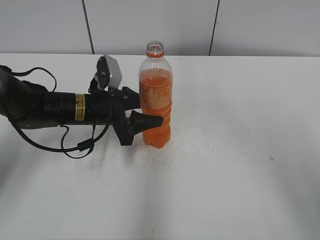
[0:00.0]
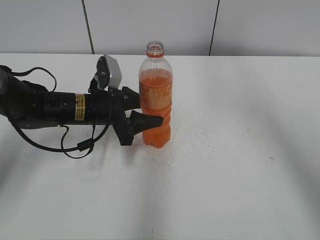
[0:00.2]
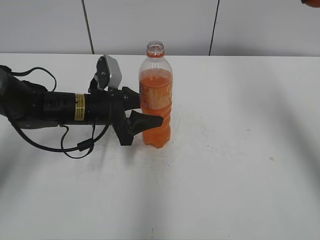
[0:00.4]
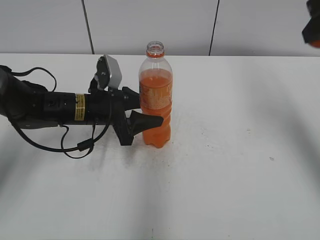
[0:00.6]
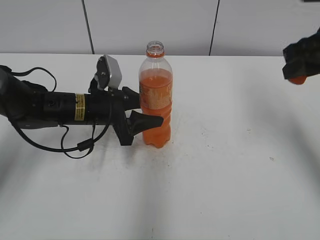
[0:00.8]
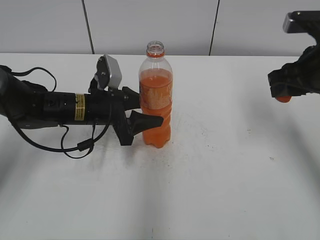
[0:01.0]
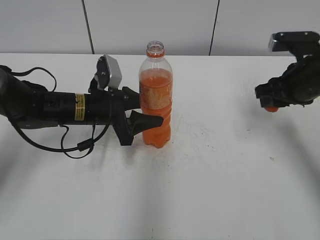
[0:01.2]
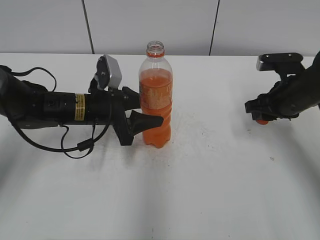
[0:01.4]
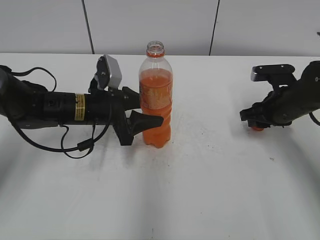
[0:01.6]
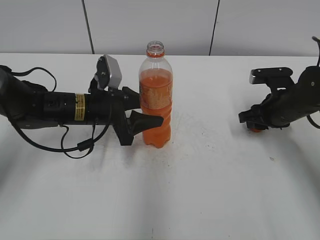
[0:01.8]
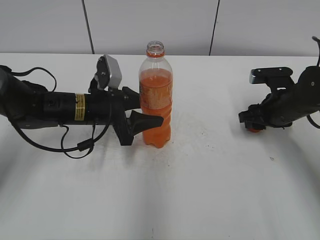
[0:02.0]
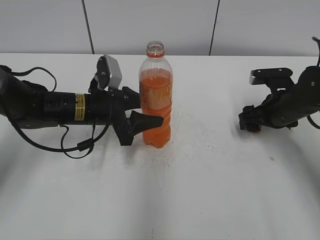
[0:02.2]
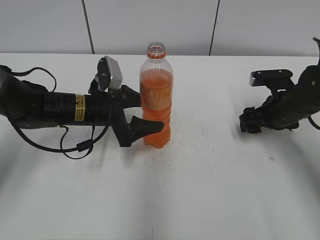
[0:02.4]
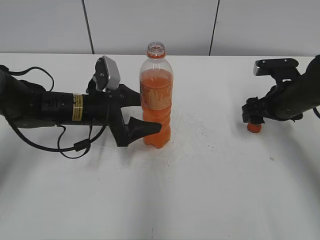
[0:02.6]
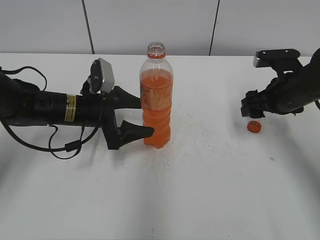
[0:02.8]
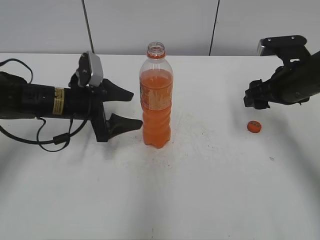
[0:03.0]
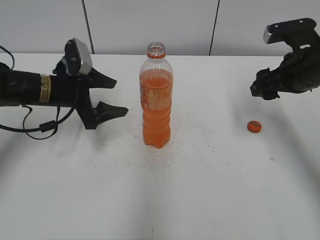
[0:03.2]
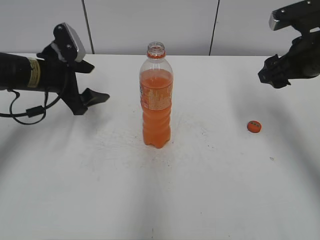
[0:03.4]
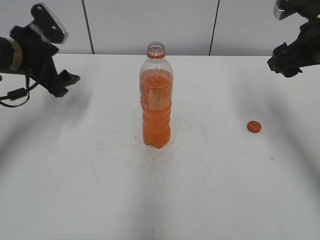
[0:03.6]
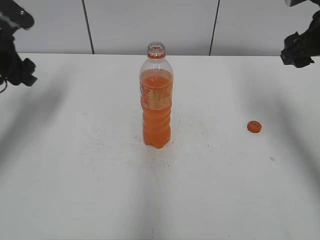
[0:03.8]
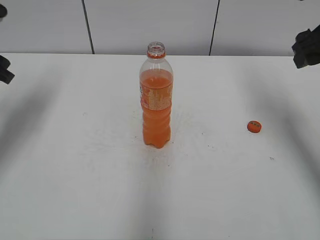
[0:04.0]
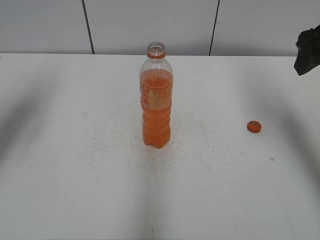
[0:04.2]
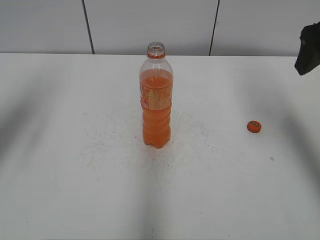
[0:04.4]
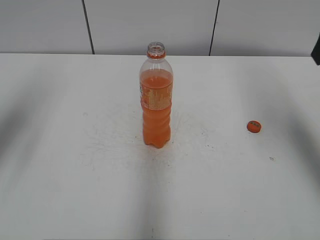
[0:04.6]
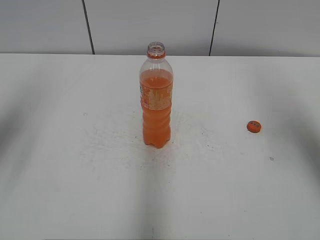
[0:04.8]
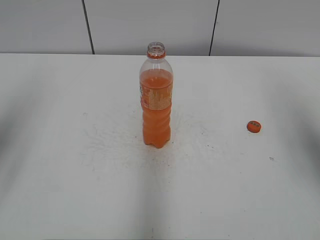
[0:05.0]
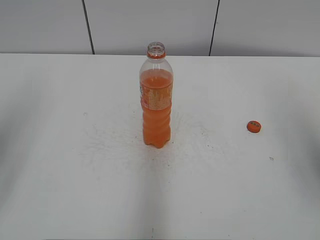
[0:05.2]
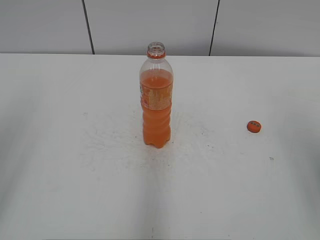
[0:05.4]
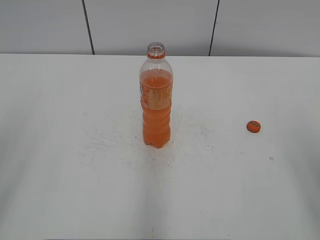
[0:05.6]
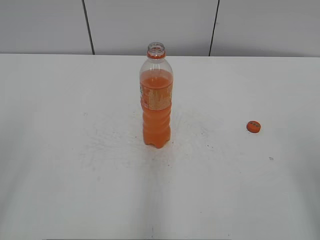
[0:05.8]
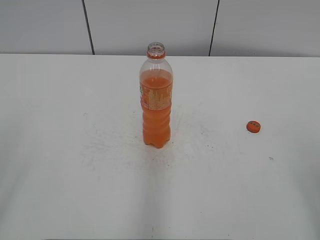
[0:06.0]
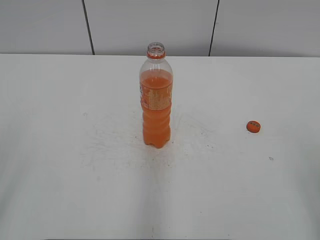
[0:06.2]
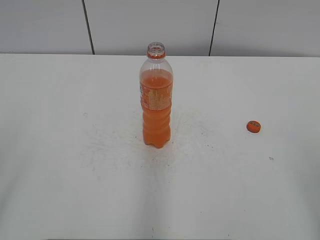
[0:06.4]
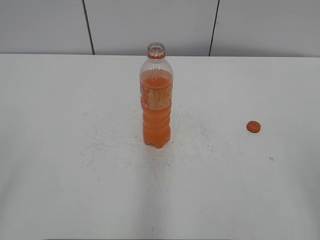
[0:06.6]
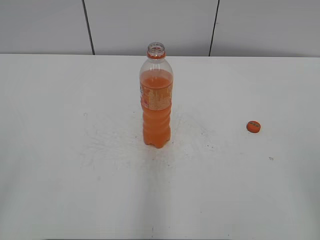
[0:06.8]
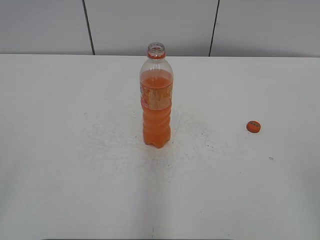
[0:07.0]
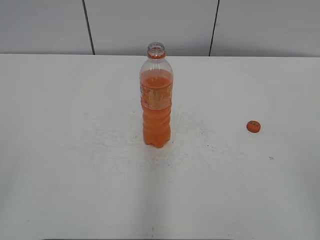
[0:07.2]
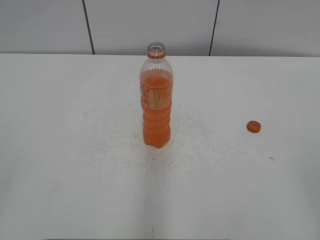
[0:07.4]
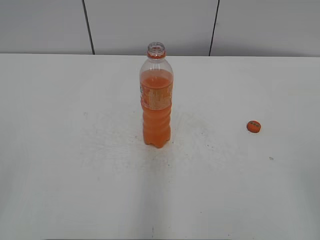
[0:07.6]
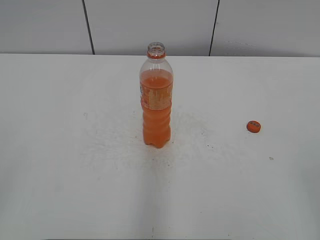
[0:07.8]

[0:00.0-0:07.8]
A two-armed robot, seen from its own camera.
Step, 0.0 to 2.0 s: Place the bottle cap on the right.
Step, 2.2 to 2.6 s: Place the Mirinda with the left hand.
0.0 to 1.6 s: The right gripper heads downward and to the right, covering roughly 35 cm.
1.6 to 3.2 s: The left gripper goes roughly 5 cm to the left, and opens, while the right gripper shifts some 10 cm upward, and opens up.
3.2 to 4.6 s: The right gripper shifts some 15 cm upward. The left gripper travels upward, to the left and backward by roughly 25 cm.
4.6 to 6.2 s: The left gripper goes some 20 cm backward; the right gripper travels backward and downward by approximately 25 cm.

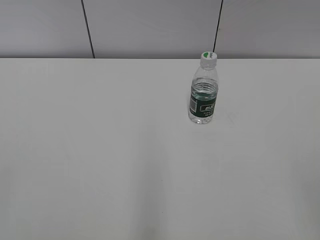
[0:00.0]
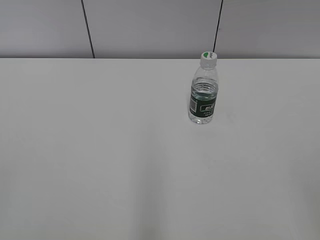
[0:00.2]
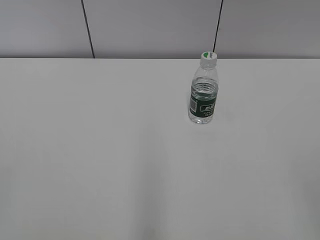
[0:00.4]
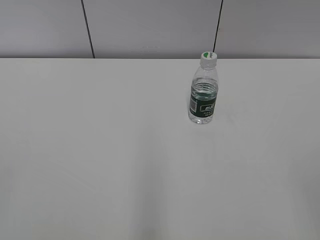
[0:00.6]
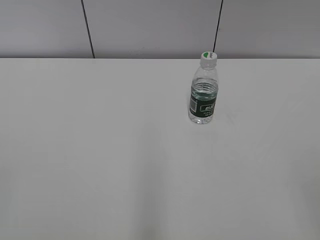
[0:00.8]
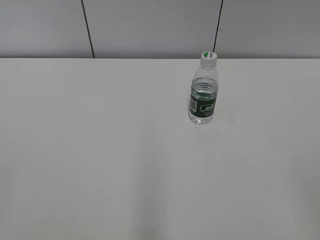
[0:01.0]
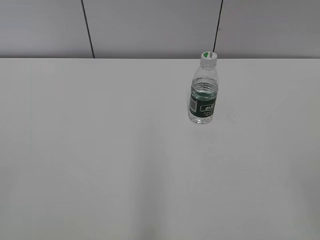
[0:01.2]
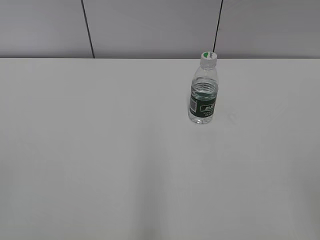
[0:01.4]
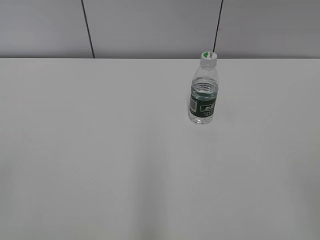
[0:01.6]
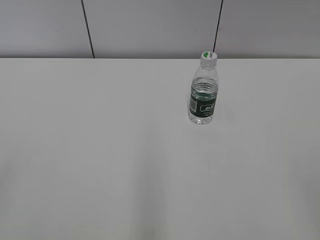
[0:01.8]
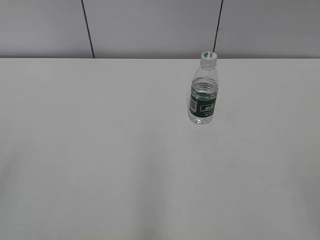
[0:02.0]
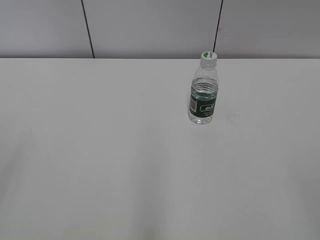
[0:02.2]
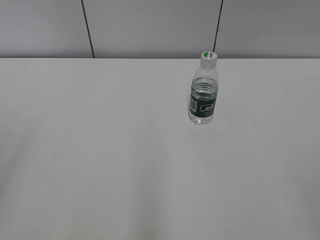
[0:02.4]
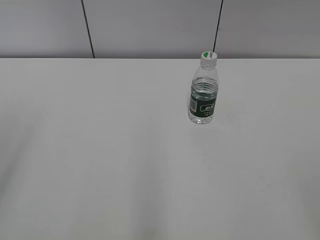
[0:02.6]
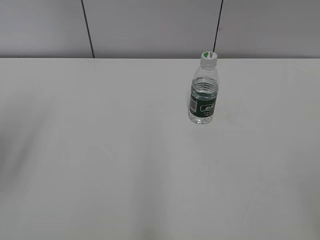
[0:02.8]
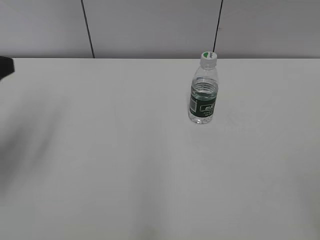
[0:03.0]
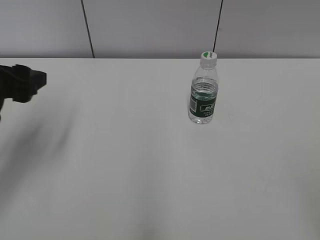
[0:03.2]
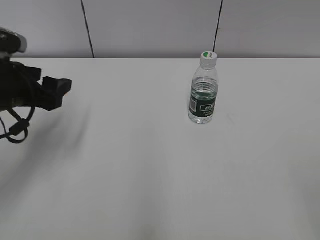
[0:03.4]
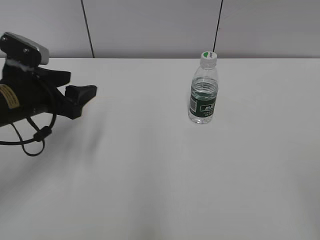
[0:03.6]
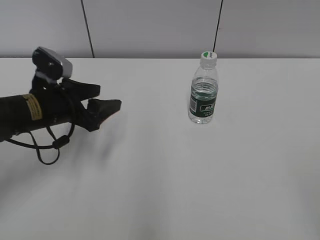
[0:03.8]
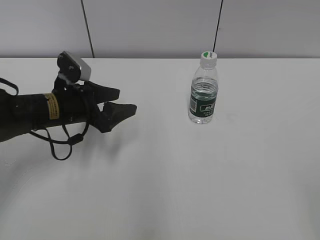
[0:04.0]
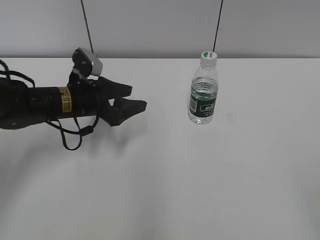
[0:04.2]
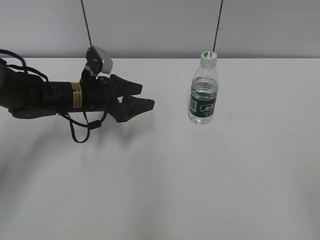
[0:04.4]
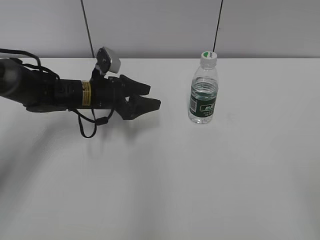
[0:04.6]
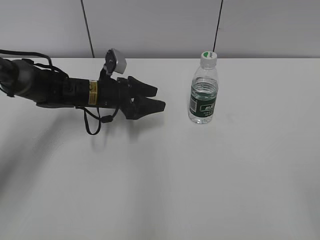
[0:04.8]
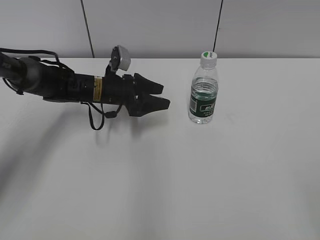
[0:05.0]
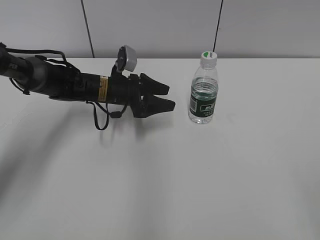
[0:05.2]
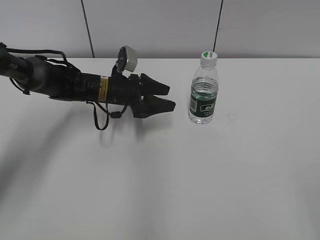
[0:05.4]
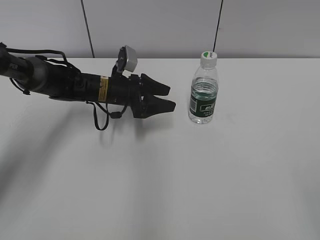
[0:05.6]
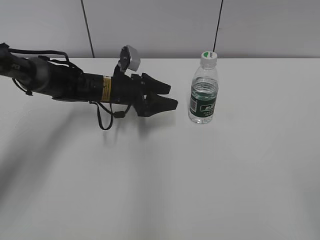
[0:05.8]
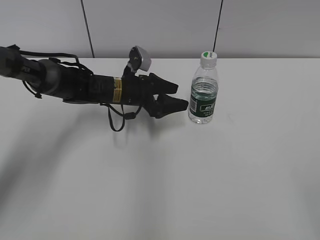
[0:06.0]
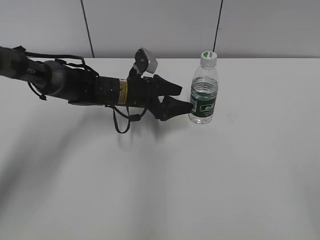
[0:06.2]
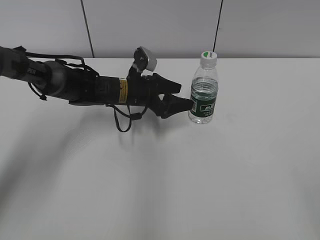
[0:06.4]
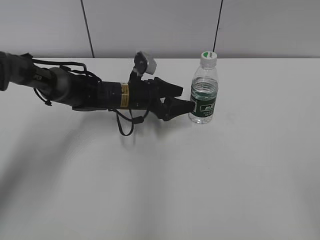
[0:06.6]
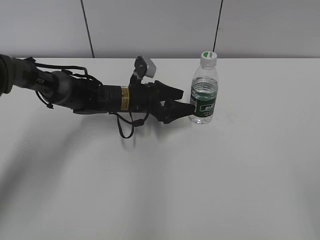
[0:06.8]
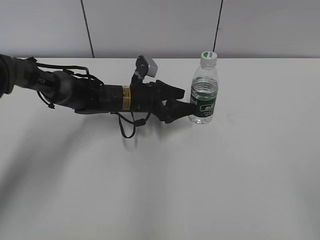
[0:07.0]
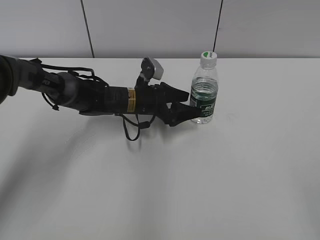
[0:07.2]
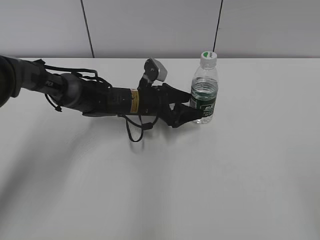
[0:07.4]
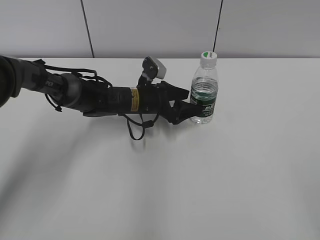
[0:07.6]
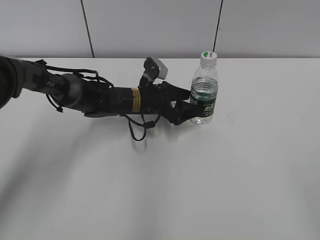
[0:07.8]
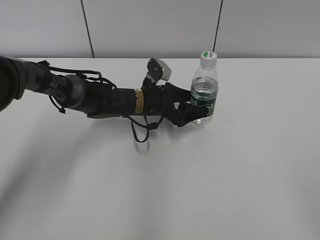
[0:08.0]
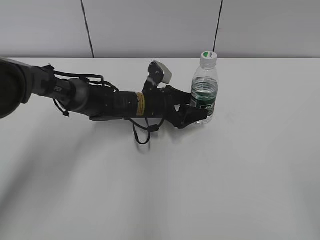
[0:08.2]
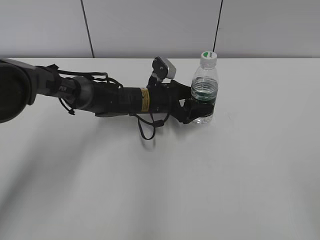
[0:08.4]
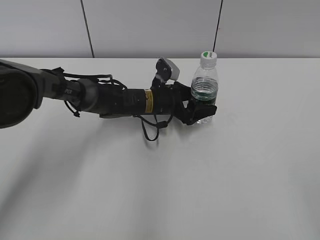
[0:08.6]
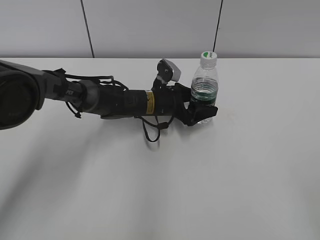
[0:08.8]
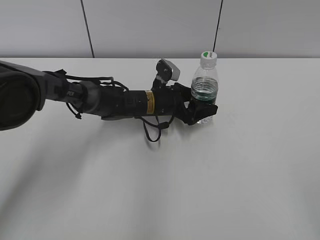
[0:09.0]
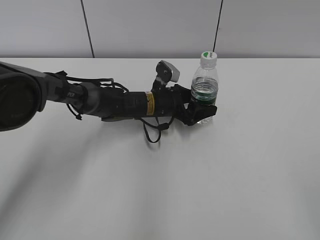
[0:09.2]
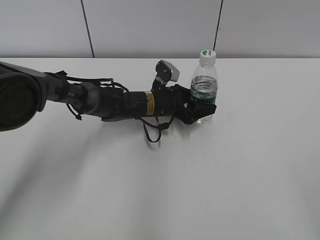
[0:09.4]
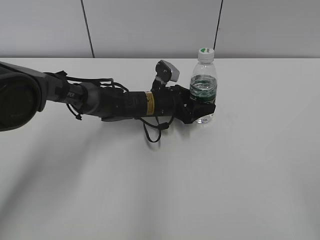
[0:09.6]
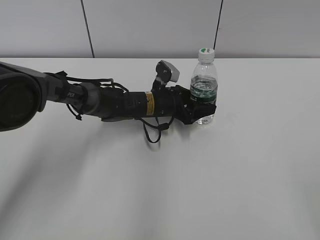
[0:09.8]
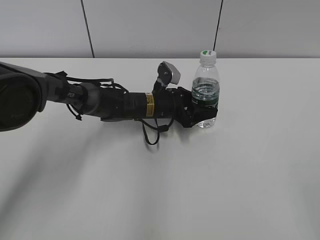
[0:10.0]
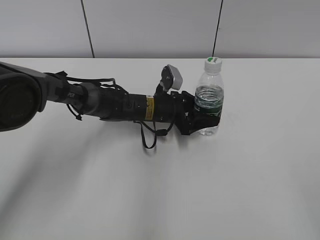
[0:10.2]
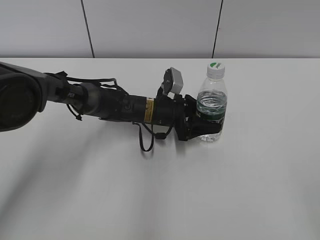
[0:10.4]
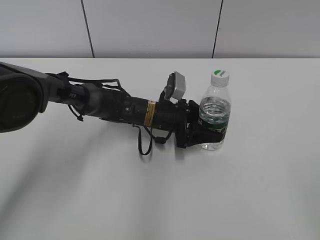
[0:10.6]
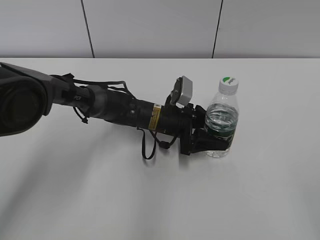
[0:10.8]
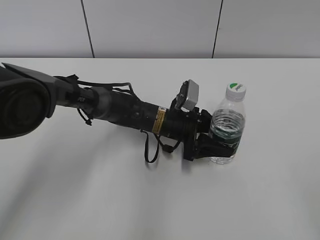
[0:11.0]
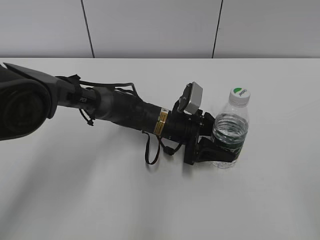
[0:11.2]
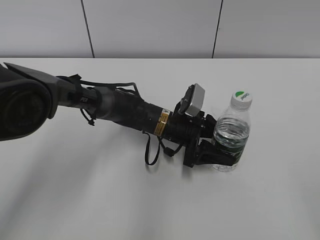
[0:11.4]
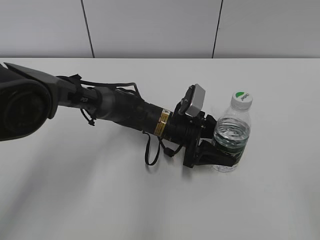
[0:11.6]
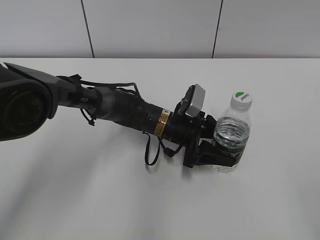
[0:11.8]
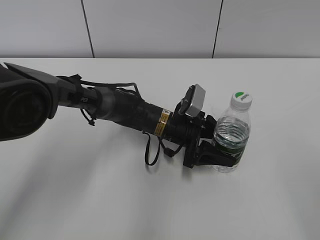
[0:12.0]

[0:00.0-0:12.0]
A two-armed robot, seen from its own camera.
Step, 0.0 to 9.4 s: Grab the C'estbon with the left hand.
Step, 9.6 to 11.2 s: Move the C'estbon to the right with the left hand.
1.6 to 3.0 s: The left gripper travels forward by about 25 cm.
3.0 to 4.4 s: The left gripper travels downward, forward and to the right by roughly 25 cm.
4.4 to 6.0 s: The left gripper is displaced to the right by approximately 5 cm.
6.0 to 7.6 s: The grippers move only a little.
7.6 to 9.0 s: The grippers make only small movements.
9.0 to 10.4 s: The left gripper closes its fingers.
10.4 to 12.0 s: The left gripper ends up roughly 5 cm from where it was.

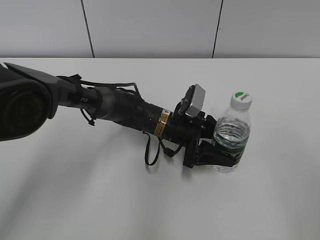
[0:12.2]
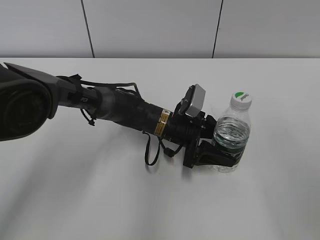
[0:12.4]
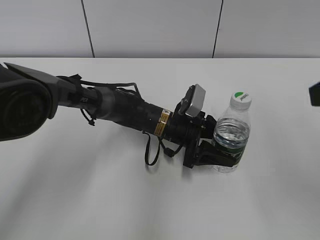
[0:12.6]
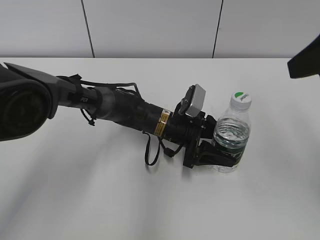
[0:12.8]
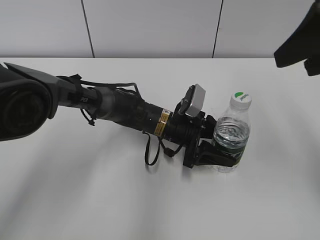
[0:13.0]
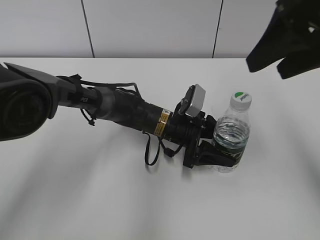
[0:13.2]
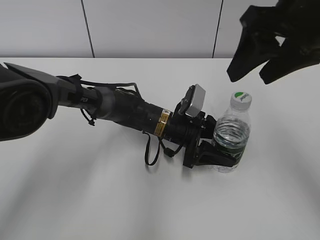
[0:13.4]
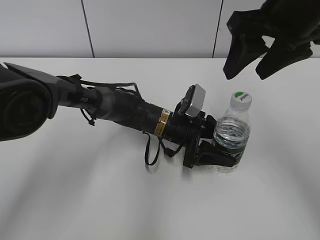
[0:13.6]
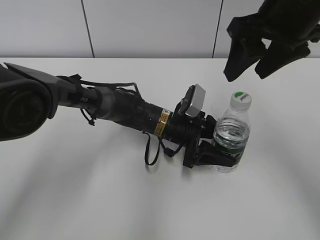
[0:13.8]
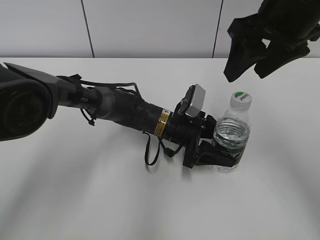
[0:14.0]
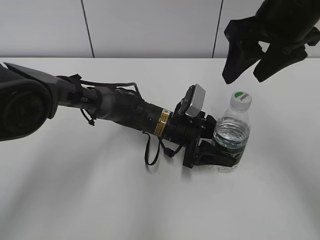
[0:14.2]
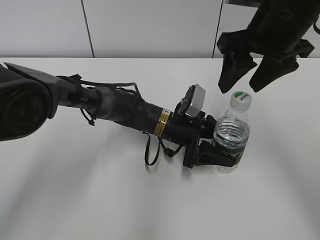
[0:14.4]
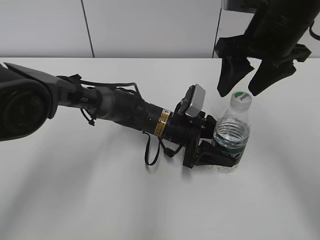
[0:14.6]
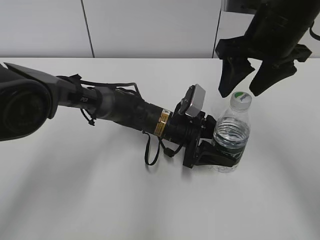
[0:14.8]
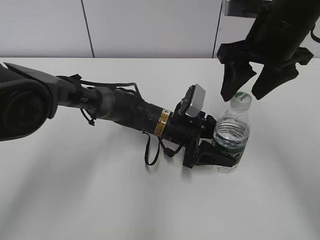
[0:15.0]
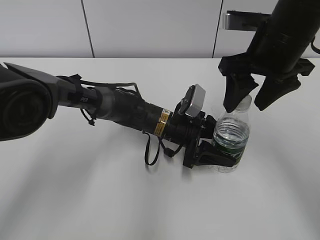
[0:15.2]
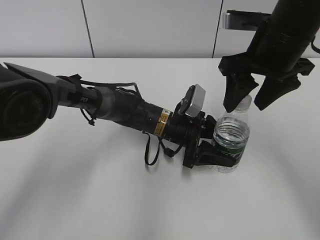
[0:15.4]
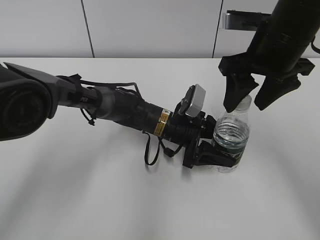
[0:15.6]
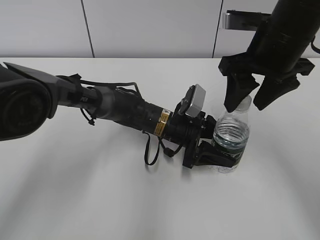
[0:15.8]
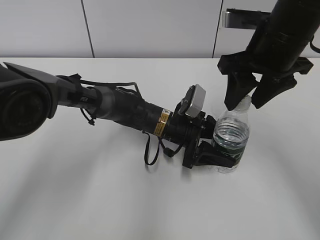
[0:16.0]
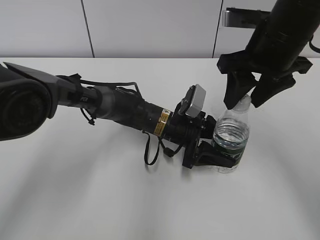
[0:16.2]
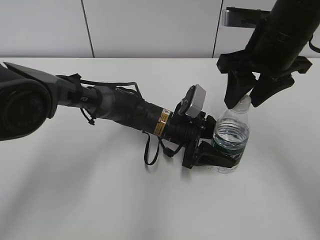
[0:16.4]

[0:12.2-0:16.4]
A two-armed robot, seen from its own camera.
12.2 to 13.6 s: The right gripper shifts approximately 25 cm forward and to the left.
13.6 to 15.0 s: The right gripper moves about 5 cm.
15.0 to 16.4 s: The grippers make only small movements.
